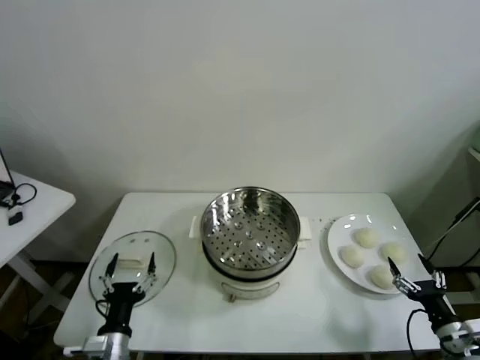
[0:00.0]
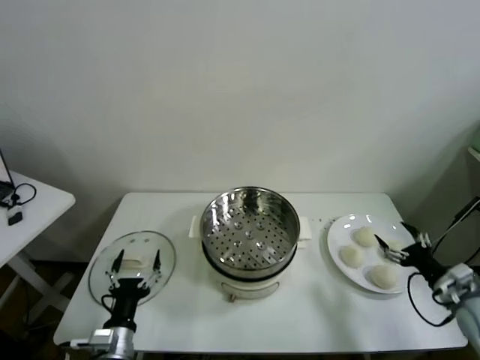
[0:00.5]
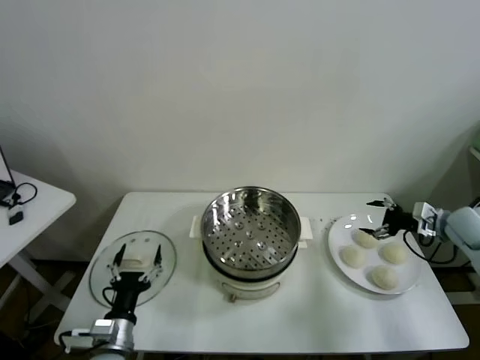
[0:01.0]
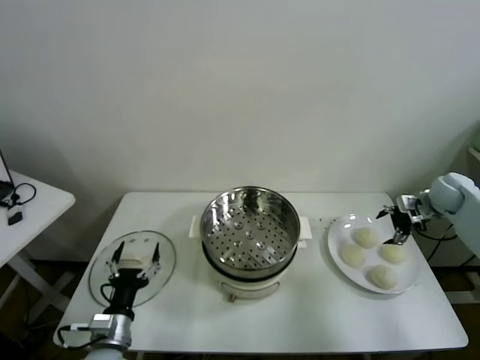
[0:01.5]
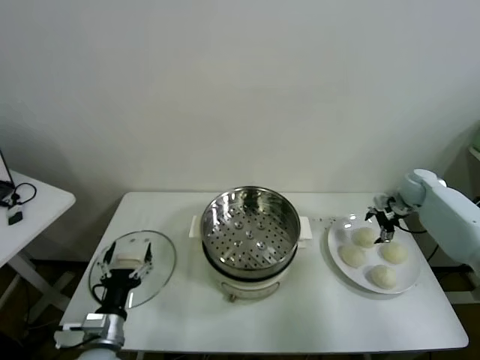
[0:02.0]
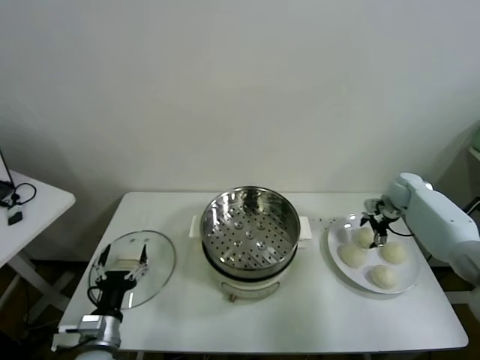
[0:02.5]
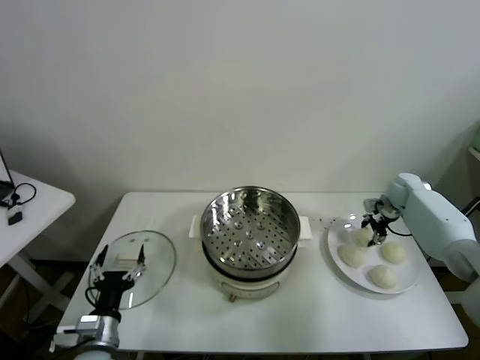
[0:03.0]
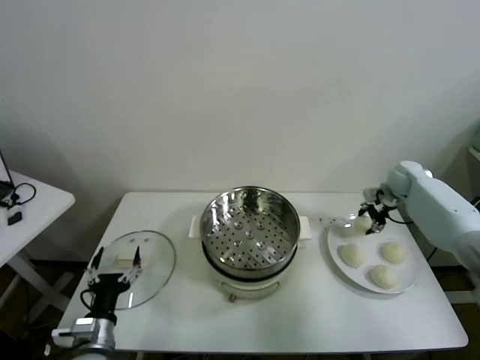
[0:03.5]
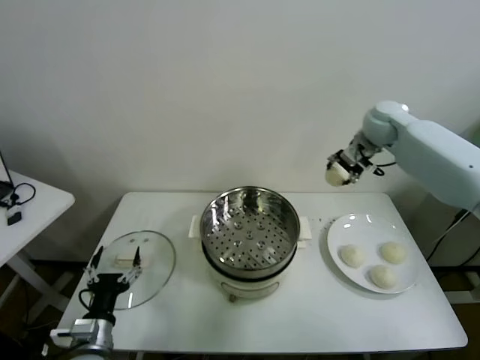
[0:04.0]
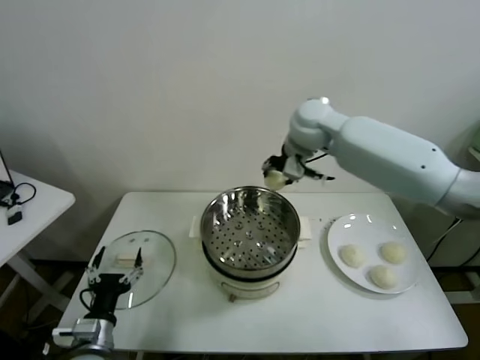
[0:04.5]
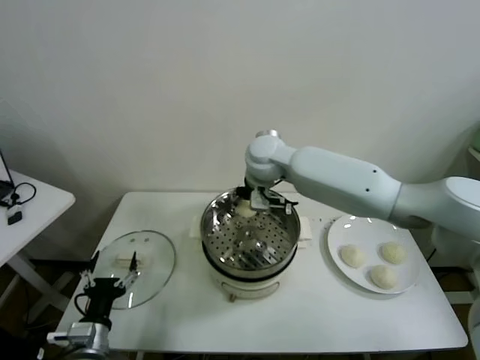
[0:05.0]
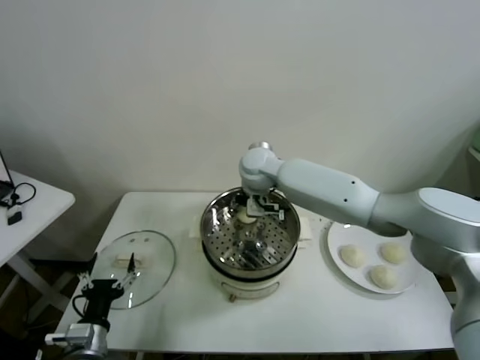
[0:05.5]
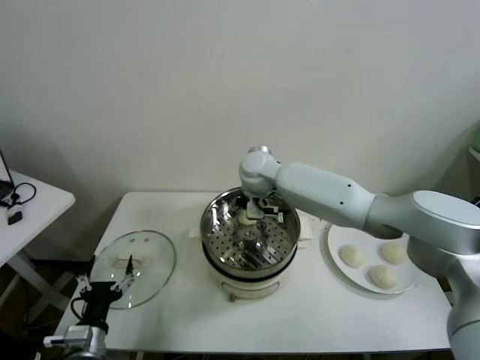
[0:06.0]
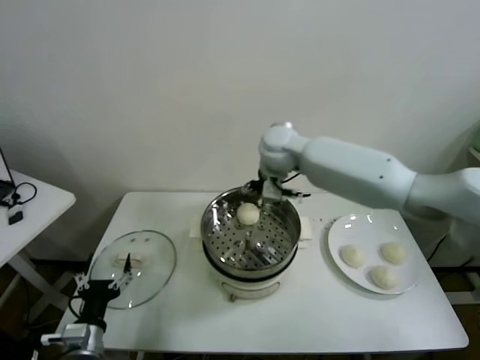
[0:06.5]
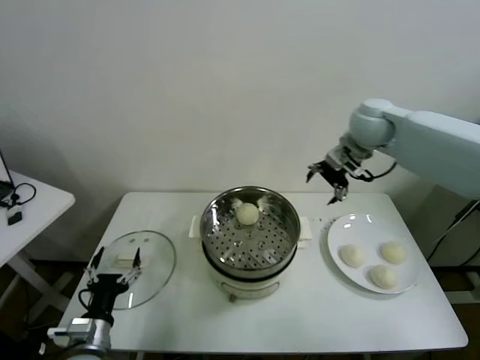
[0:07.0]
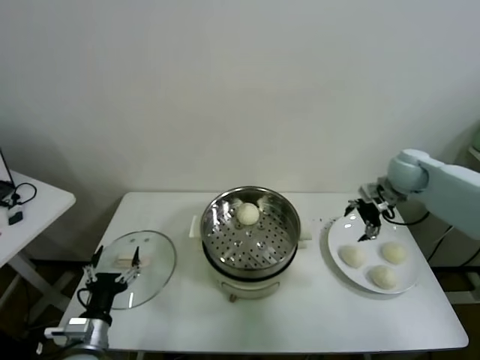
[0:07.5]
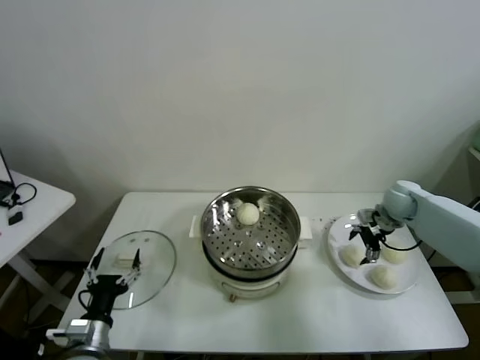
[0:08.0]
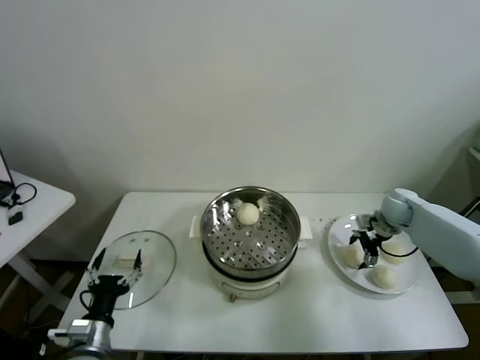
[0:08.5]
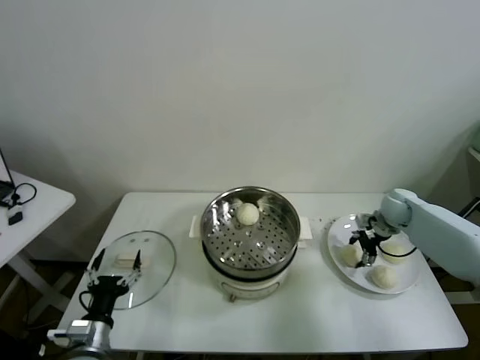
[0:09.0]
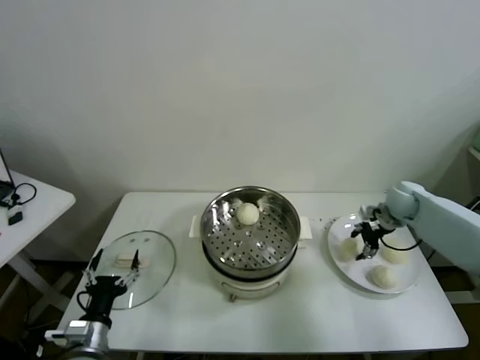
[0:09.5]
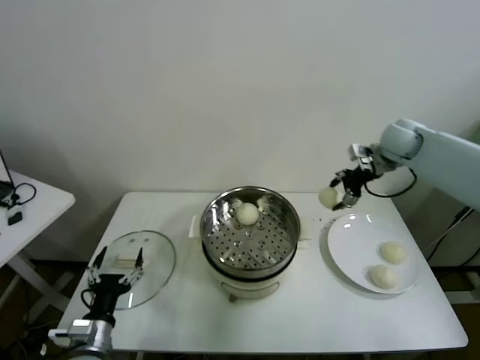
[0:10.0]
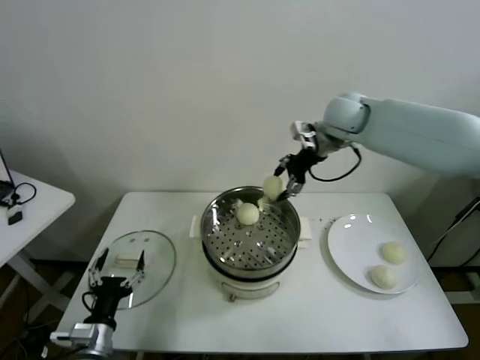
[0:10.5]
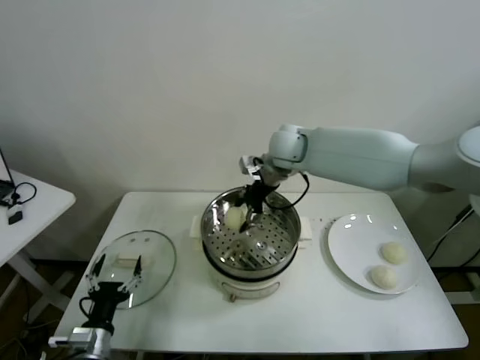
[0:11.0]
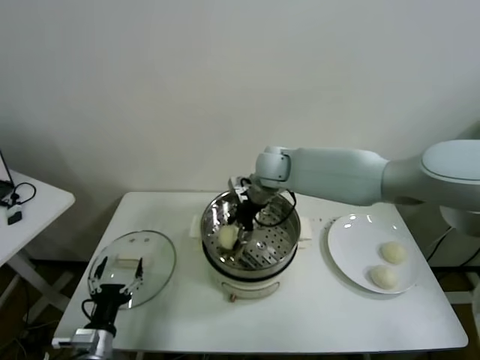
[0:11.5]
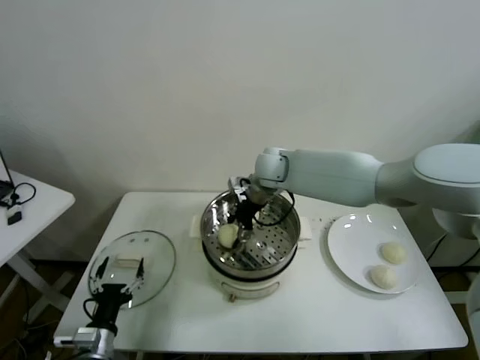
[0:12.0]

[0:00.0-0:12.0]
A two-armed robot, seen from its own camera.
Task of the whole recording: take steamed baozi put them in steamer.
Step, 0:00.0 to 0:03.0: Grasp the baozi in the plate with right gripper.
Step, 0:03.5 to 0:05.5: Place the baozi on the steamer with right gripper.
Step, 0:06.0 to 0:09.0: Grasp the baozi in the plate with right gripper.
0:02.0 to 0:04.0: The right gripper shifts roughly 30 cm upward and to the left, and closes its fingers.
0:04.0 to 0:06.0: The right gripper moves to the left and downward, about 25 cm, and opens its fingers.
0:06.0 to 0:08.0: The right gripper travels to the right by roughly 40 cm.
0:08.0 to 0:10.0: The right gripper heads upward, covering about 20 cm, and closes.
0:10.0 to 0:12.0: The right gripper is displaced to the left by approximately 30 cm.

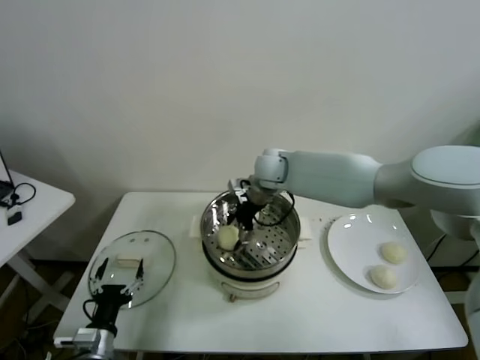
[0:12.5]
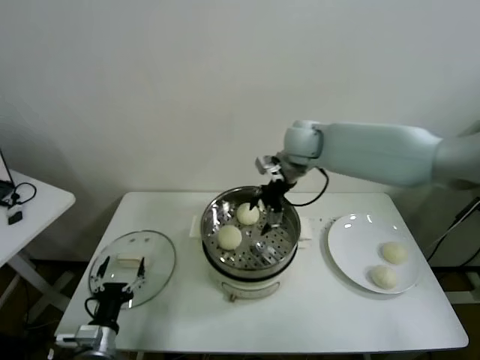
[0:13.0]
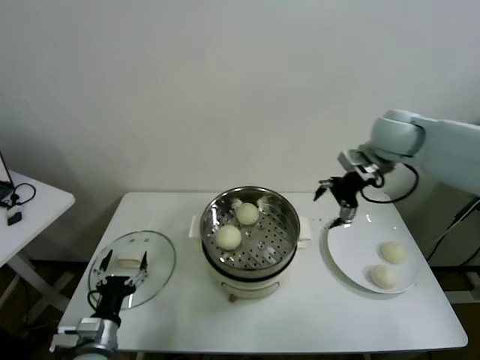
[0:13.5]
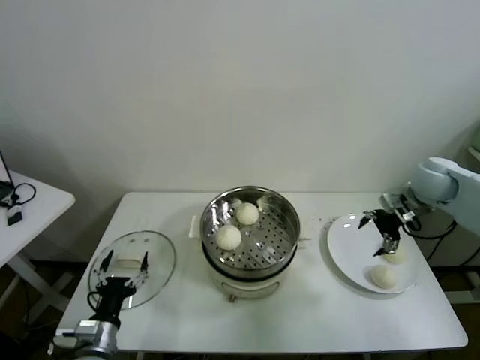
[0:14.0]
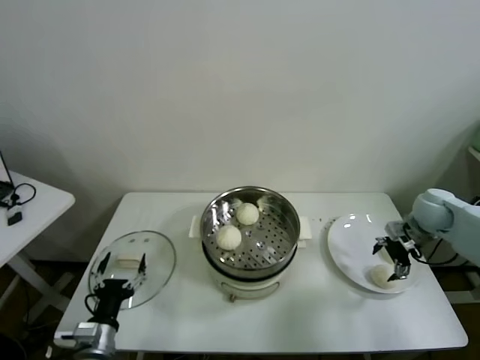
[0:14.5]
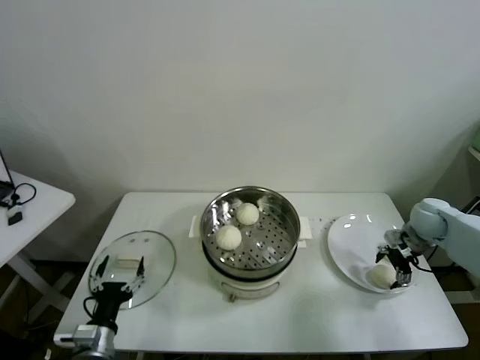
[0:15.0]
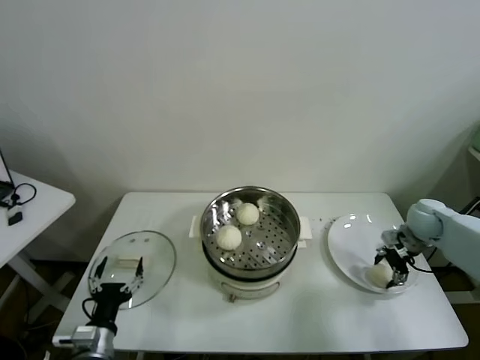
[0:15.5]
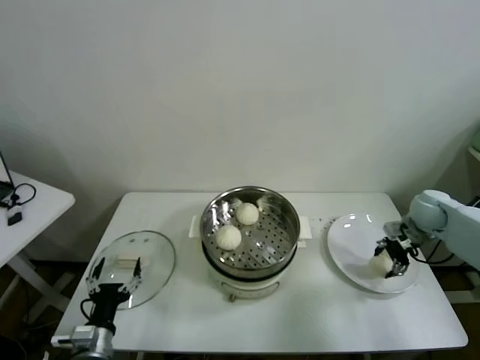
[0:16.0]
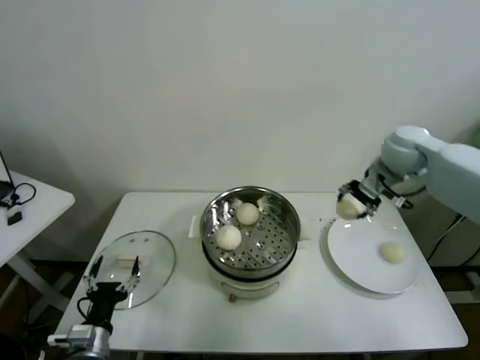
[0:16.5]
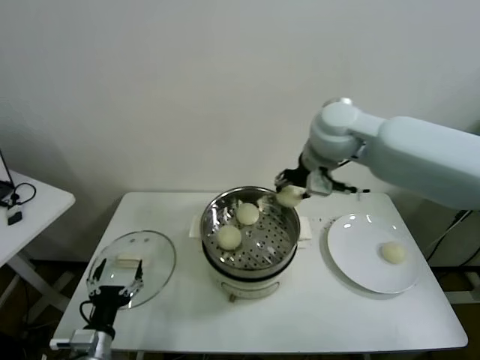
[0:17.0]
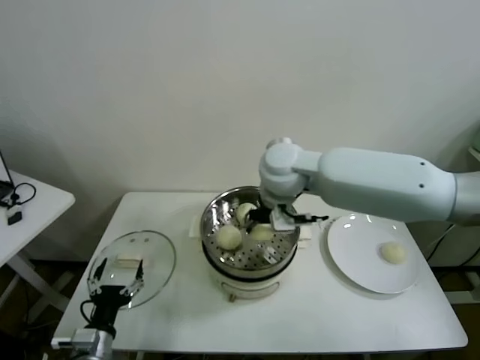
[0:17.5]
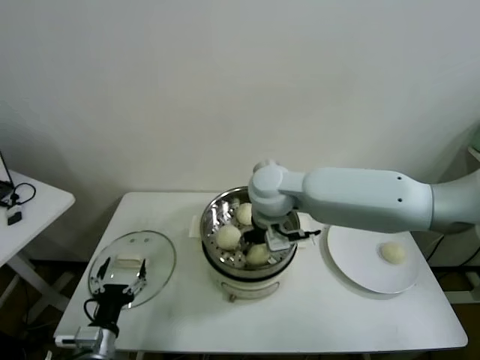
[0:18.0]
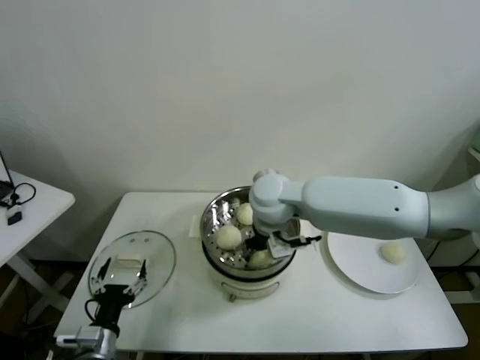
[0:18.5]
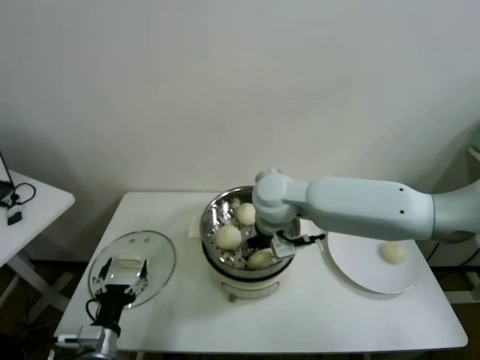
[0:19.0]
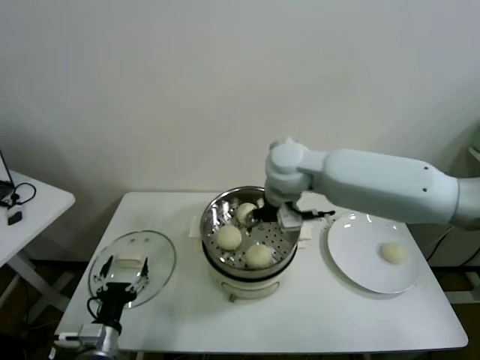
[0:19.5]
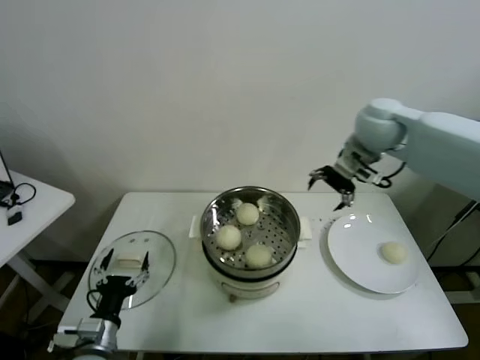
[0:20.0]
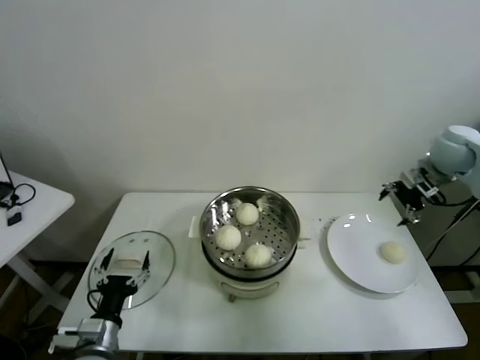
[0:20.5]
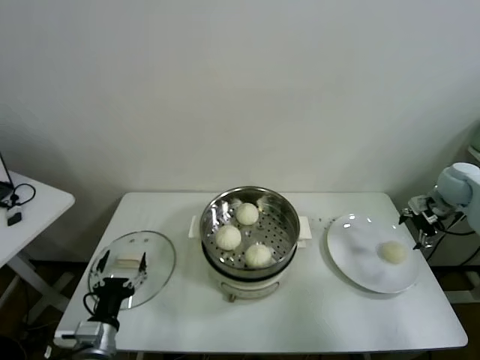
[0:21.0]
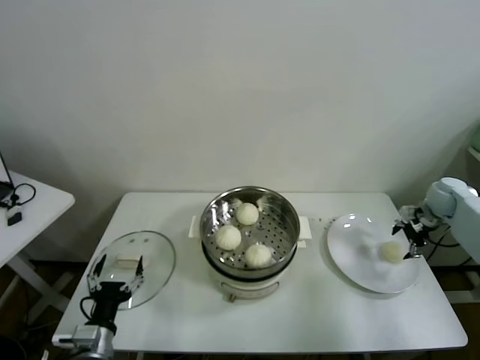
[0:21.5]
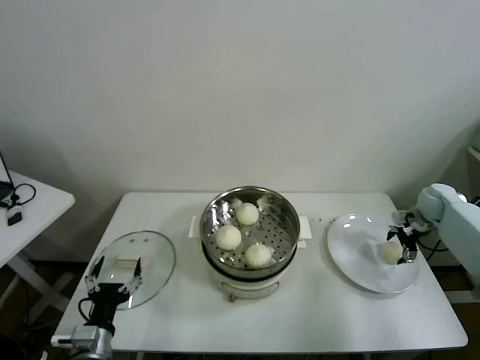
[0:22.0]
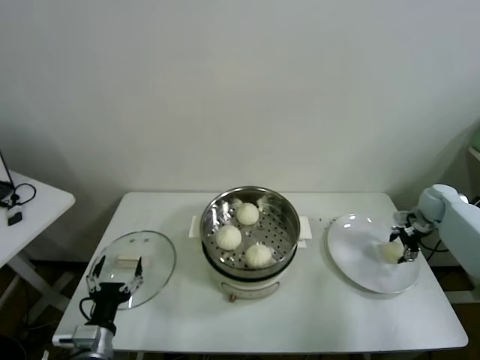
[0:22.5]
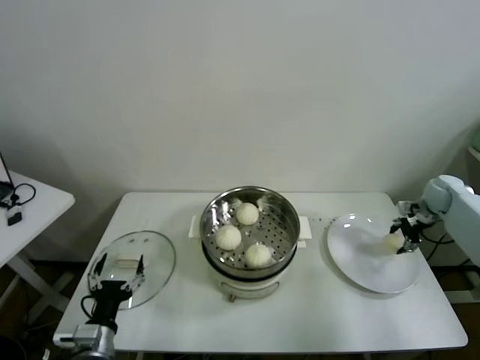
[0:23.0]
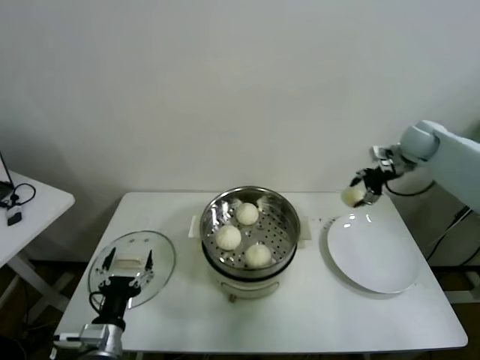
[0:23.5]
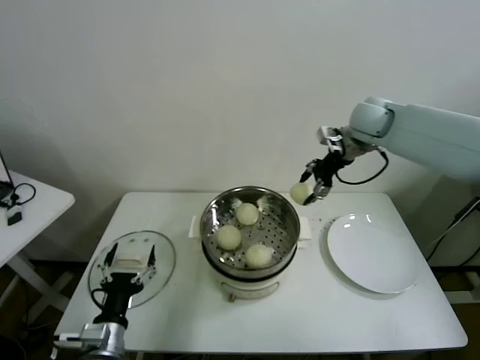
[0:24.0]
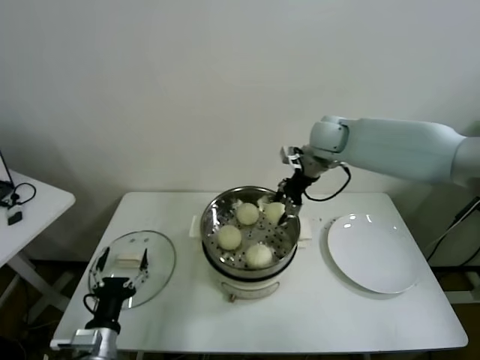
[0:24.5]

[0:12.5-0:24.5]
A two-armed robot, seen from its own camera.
Task of the whole recording: take steamed baozi put them in steamer.
Step, 0:13.0 to 0:15.5: Grasp the baozi in the plate with right gripper.
Step, 0:16.0 to 0:18.5: Place the baozi on the steamer with right gripper.
Step, 0:19.5 to 0:22.5: Grasp the baozi in the plate with right gripper.
0:12.5 to 0:14.5: The right gripper travels to the right by some 40 cm.
0:14.5 to 0:16.5: The right gripper travels upward and to the left by roughly 20 cm, and closes its fingers.
0:16.5 to 0:18.5: The right gripper shifts roughly 25 cm to the left.
0:18.5 to 0:20.5: The right gripper shifts approximately 40 cm to the right, and opens.
0:20.5 to 0:22.5: The right gripper is displaced downward by about 20 cm, and closes.
0:22.5 to 0:24.5: The right gripper goes about 40 cm to the left and upward.

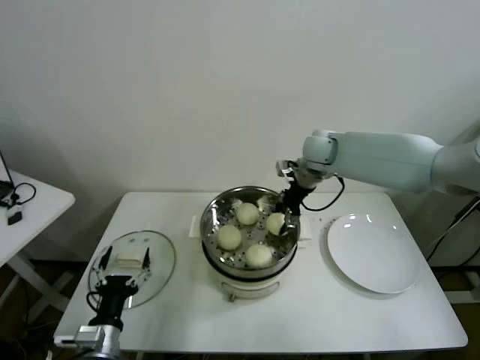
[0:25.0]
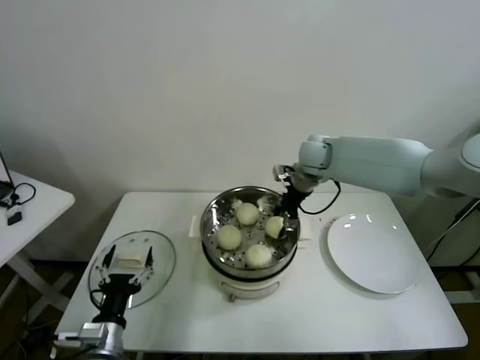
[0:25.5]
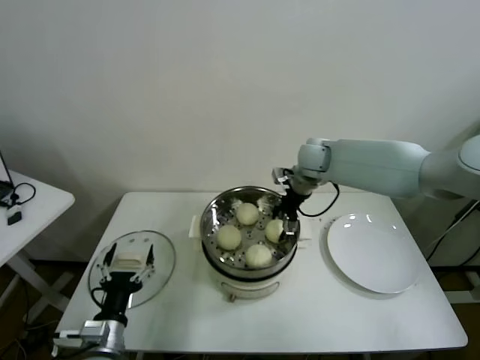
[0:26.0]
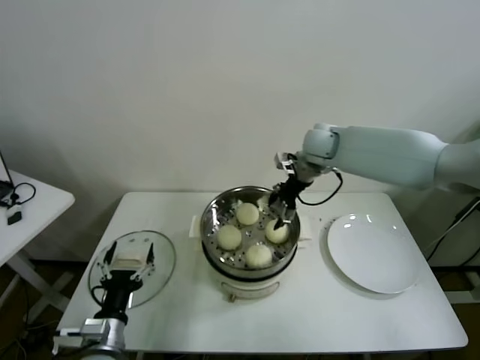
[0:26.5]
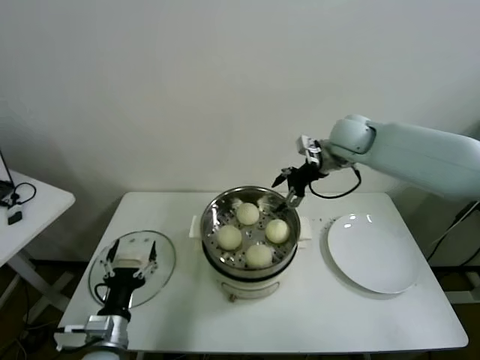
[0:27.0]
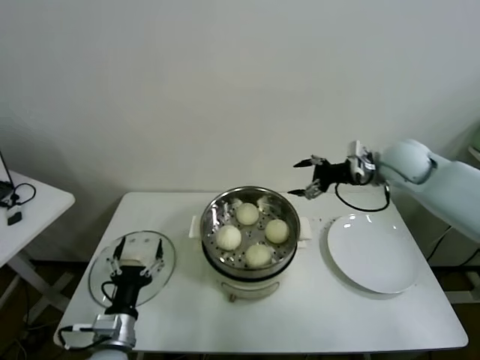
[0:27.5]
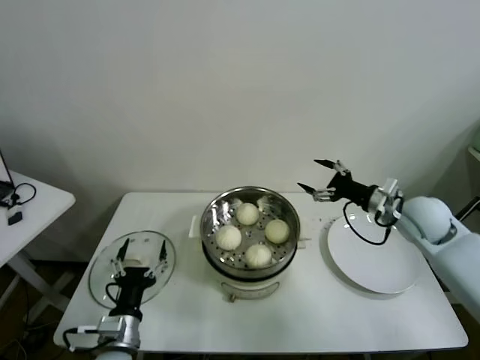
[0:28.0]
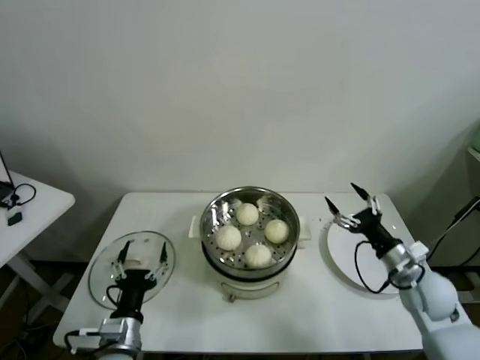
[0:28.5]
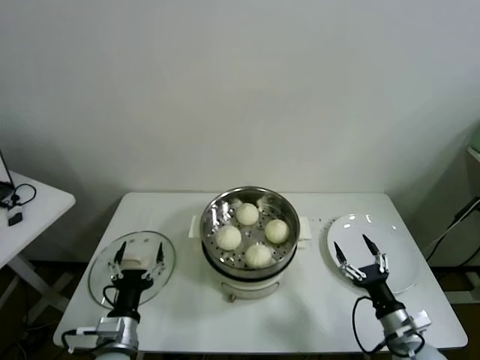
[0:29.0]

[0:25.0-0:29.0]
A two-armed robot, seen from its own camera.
Task of the whole recording: take steamed baozi put them in steamer.
0:25.0 to 0:27.0: The right gripper shifts by some 5 cm, and opens.
0:27.0 to 0:29.0: The right gripper moves backward and downward, roughly 50 cm.
